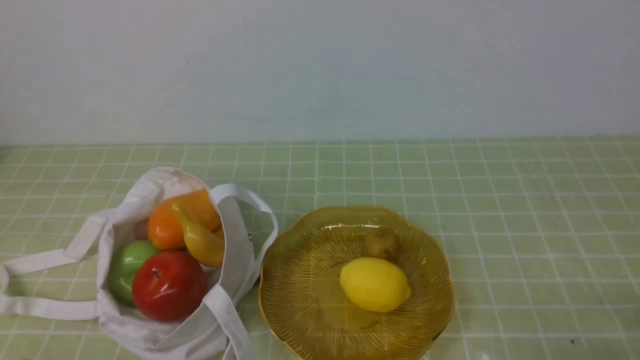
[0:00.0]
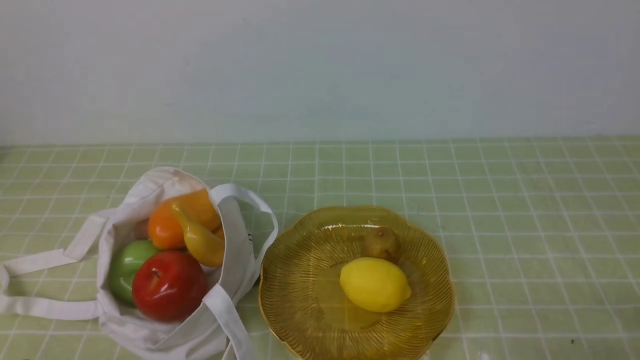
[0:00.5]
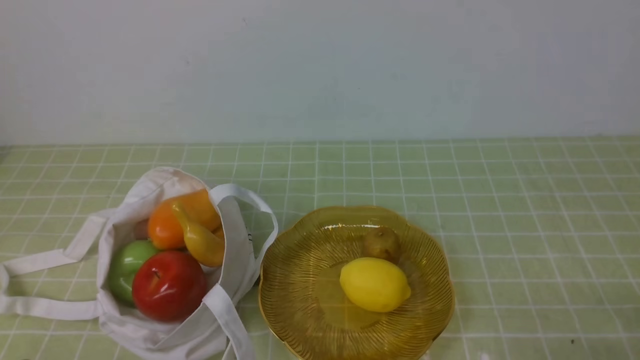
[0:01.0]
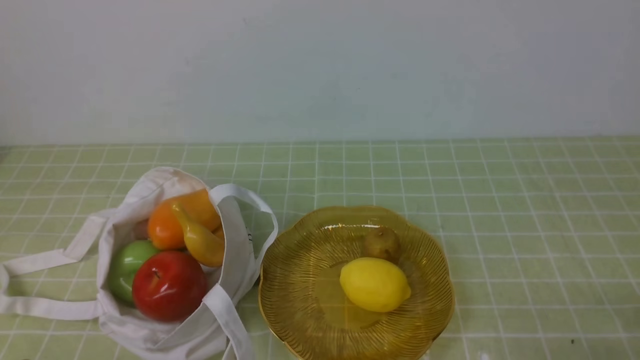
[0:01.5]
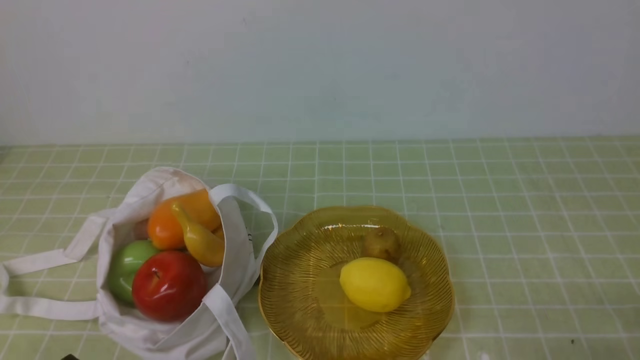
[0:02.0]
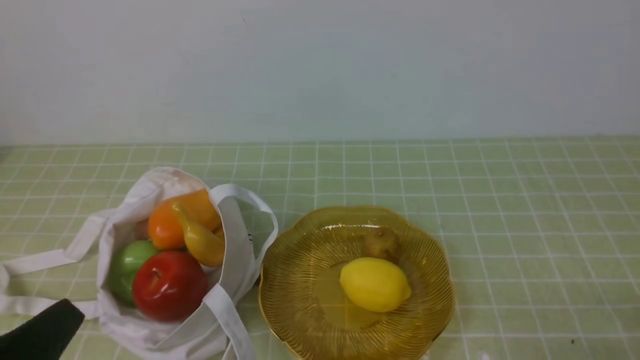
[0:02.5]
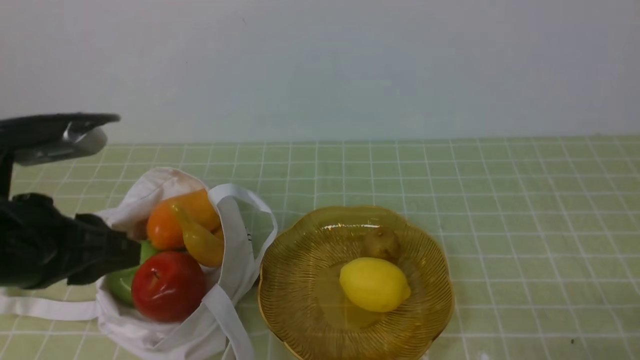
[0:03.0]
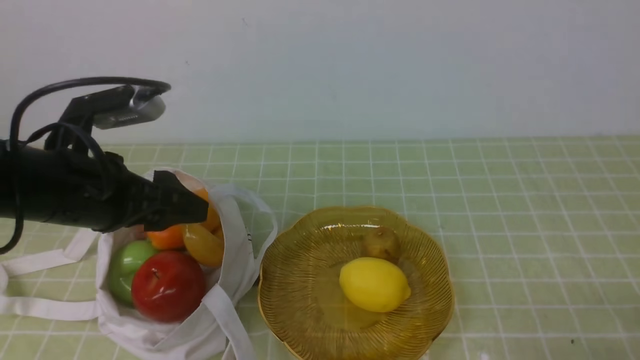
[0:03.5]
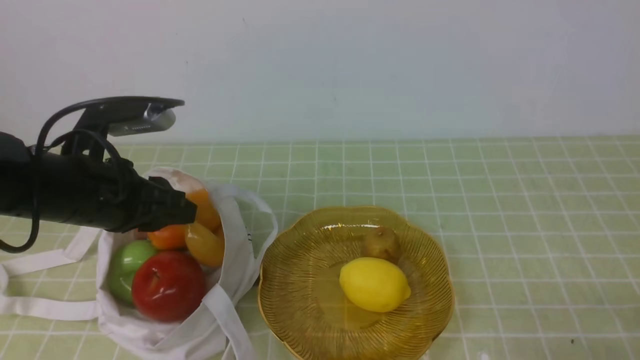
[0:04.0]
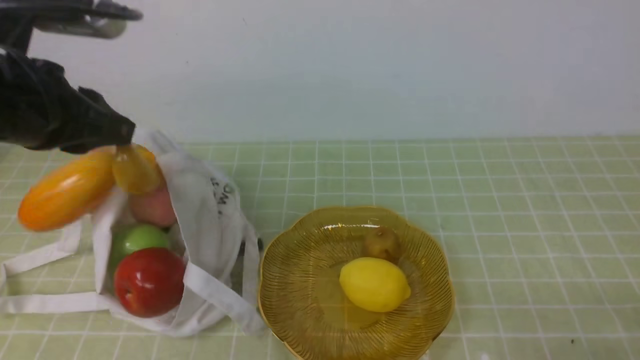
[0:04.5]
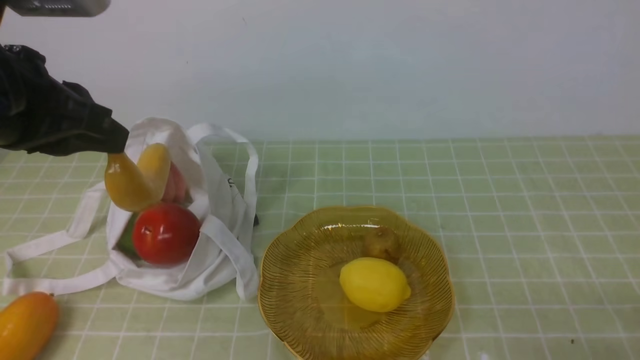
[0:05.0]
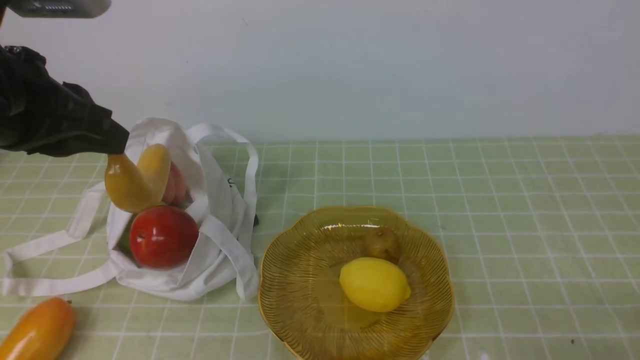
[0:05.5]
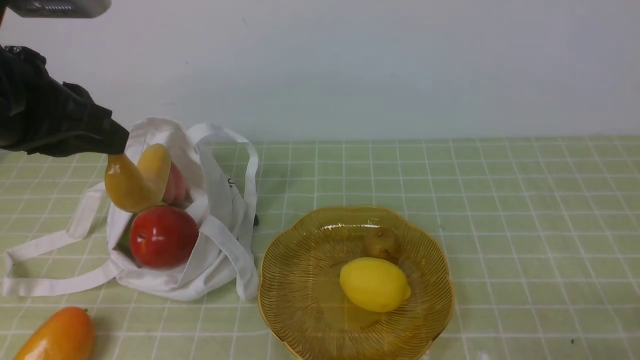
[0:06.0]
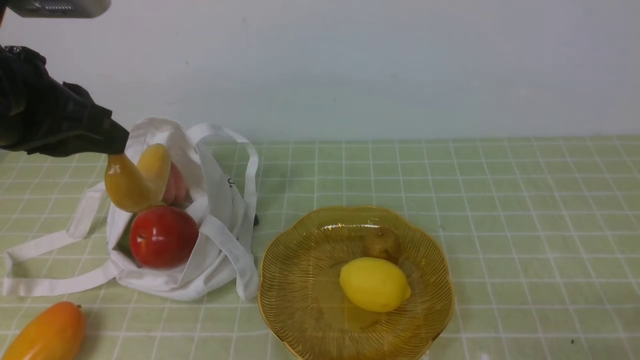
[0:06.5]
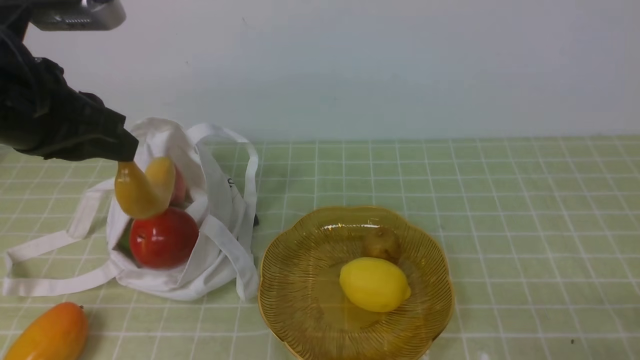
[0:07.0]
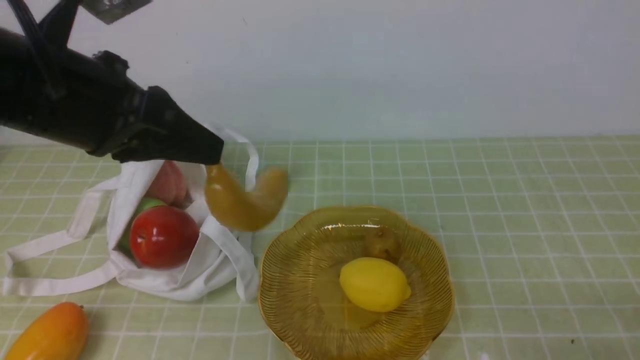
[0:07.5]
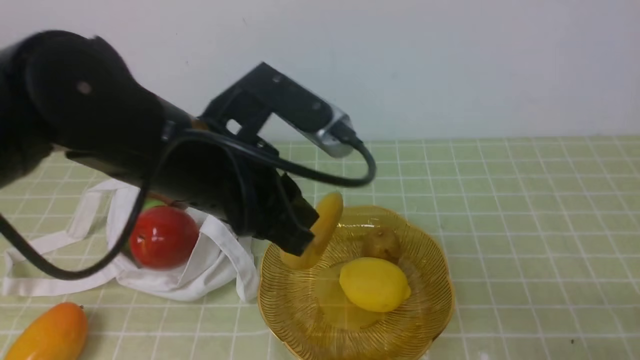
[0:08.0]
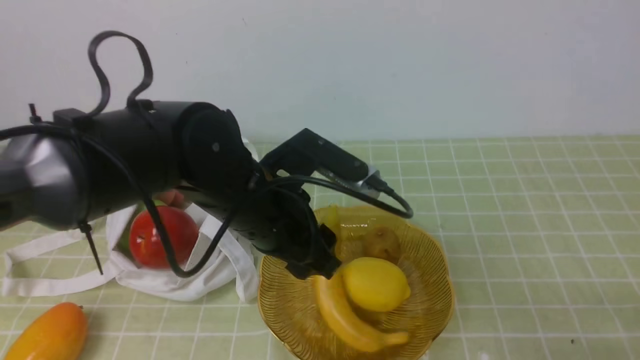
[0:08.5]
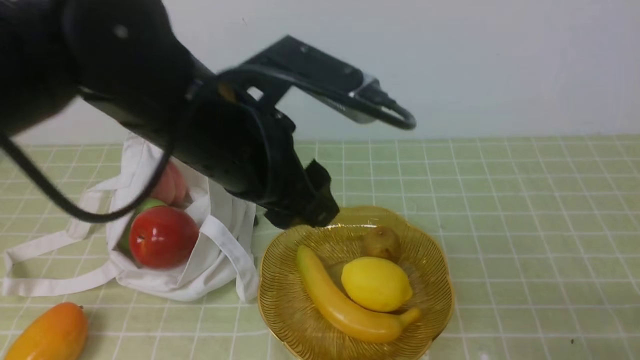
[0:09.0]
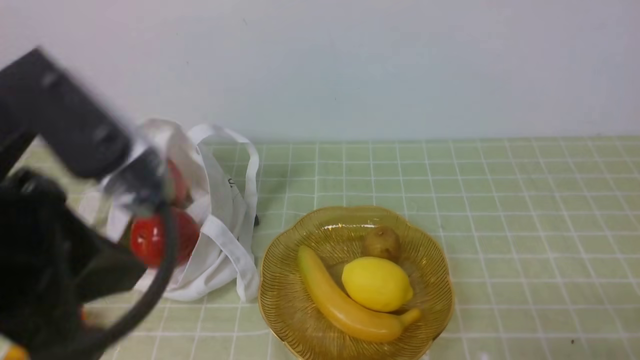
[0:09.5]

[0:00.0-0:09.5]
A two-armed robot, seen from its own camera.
Step, 0:00.0 to 0:04.0: use the left arm to grab a banana from the bag.
Step, 0:05.0 to 0:08.5: use the left arm to put the banana into the empty plate on the right.
0:02.0 to 0:04.0: The left gripper goes some 25 cm forward, and opens.
0:04.0 to 0:05.5: The left gripper heads upward, covering roughly 15 cm, and closes.
0:05.5 to 0:07.5: There are only small adjustments of the grippers.
0:07.5 to 0:09.5: The left gripper moves backward, some 10 cm, goes downward and returns, roughly 10 cm each way, and opens and closes again.

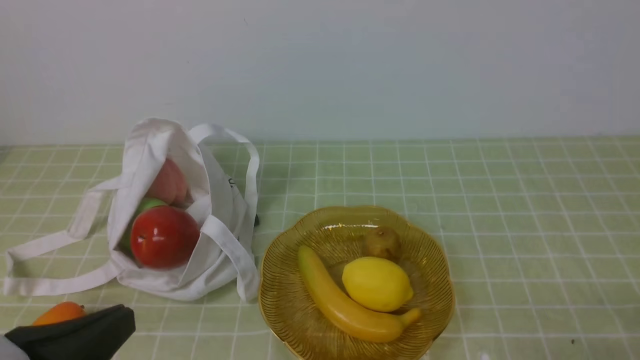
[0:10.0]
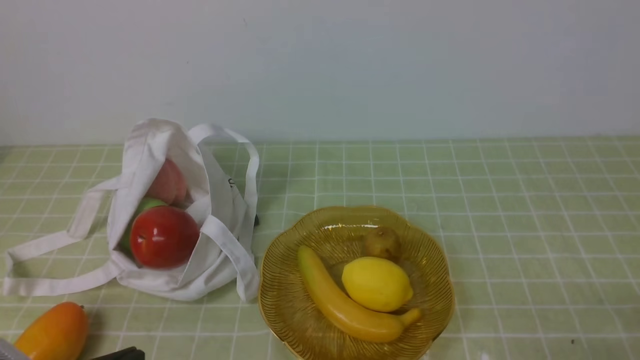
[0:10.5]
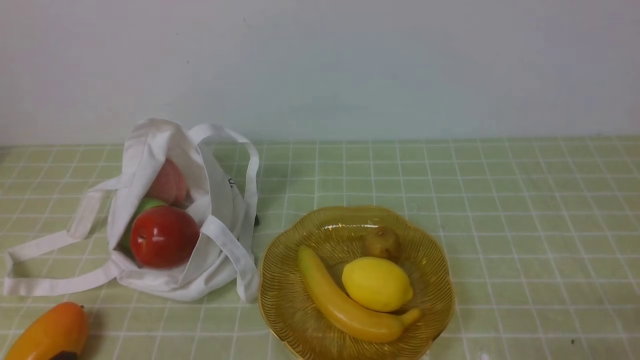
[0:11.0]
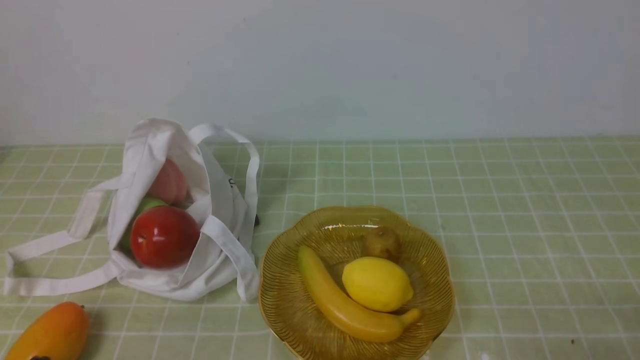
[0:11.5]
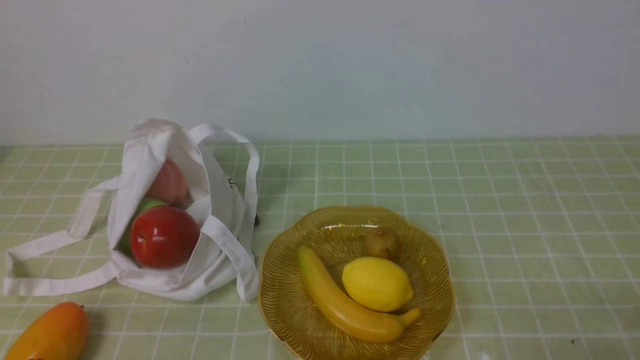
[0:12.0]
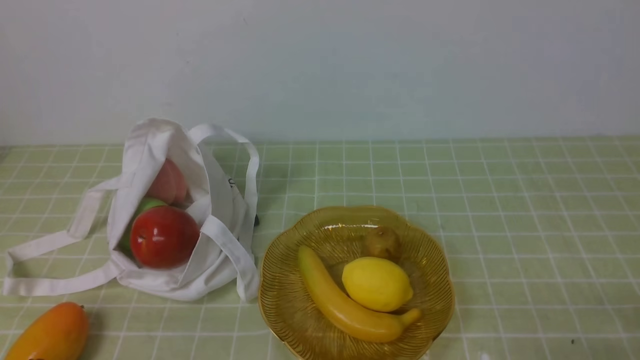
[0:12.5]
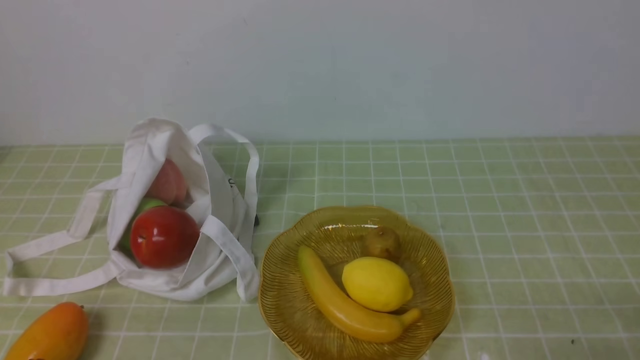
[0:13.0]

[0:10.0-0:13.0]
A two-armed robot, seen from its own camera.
0:10.0 to 0:11.5: The left gripper heads downward, covering approximately 10 cm.
0:11.5 to 0:13.0: Both grippers stay put.

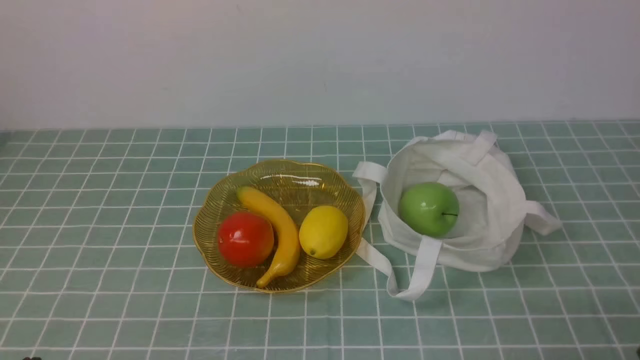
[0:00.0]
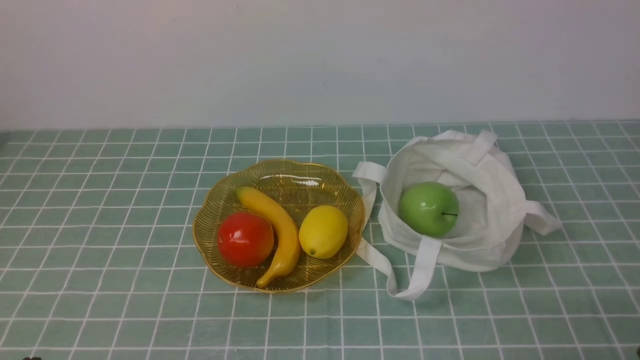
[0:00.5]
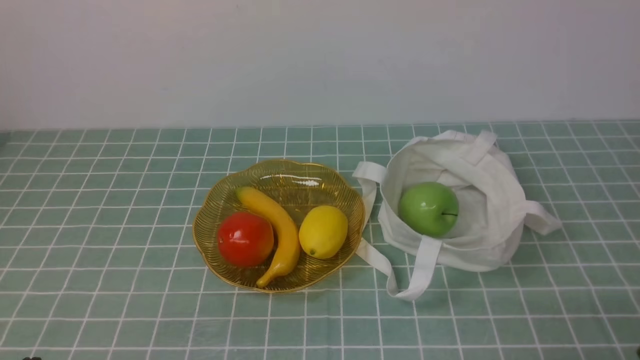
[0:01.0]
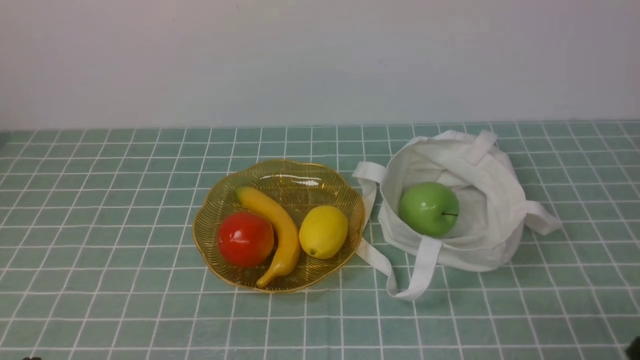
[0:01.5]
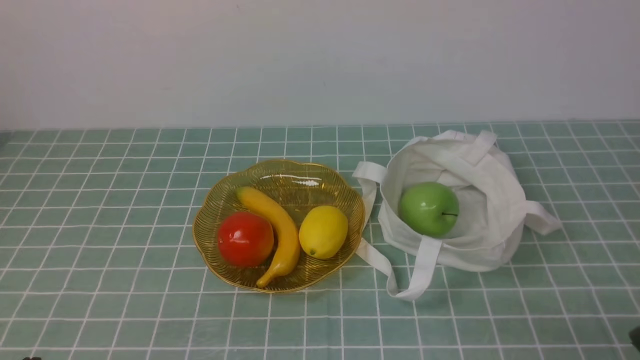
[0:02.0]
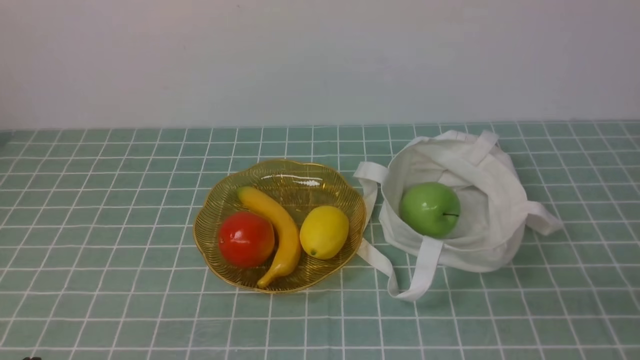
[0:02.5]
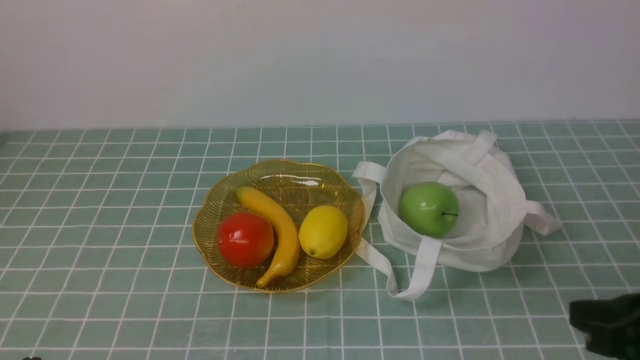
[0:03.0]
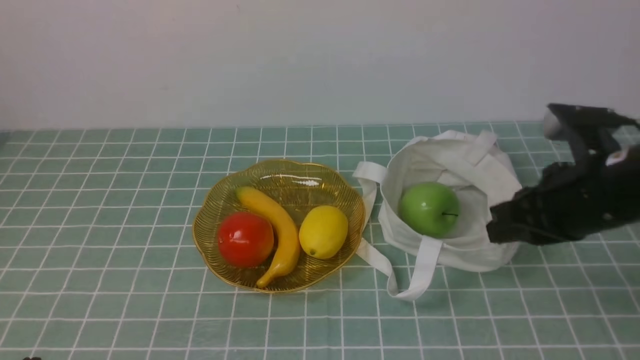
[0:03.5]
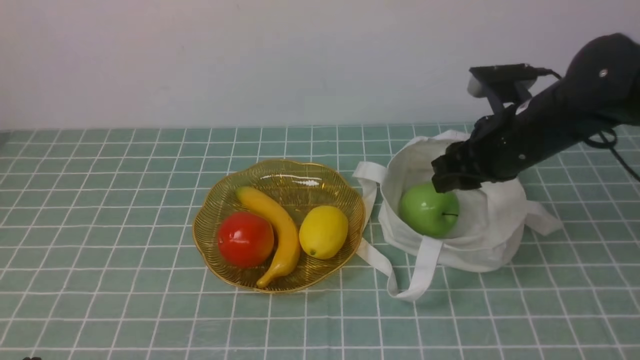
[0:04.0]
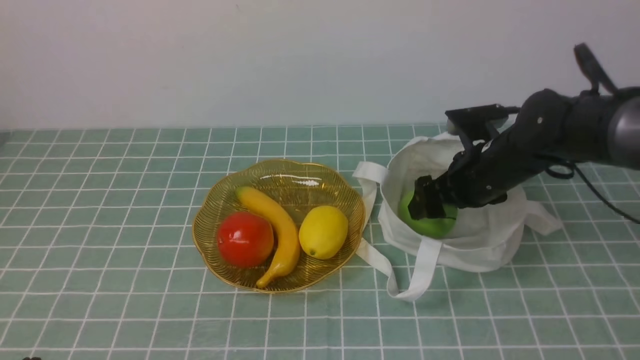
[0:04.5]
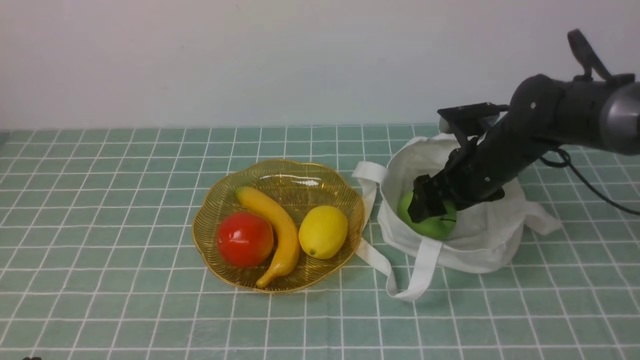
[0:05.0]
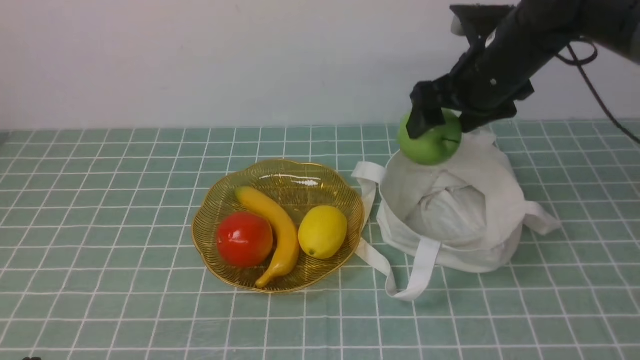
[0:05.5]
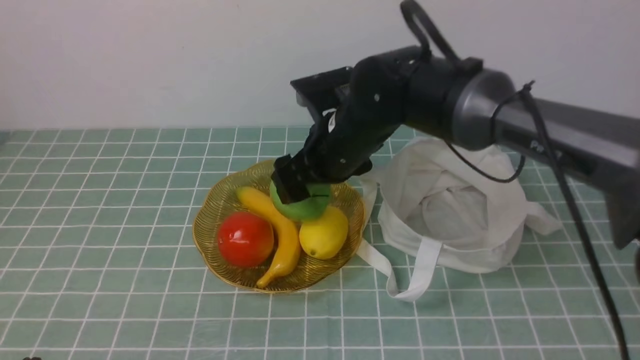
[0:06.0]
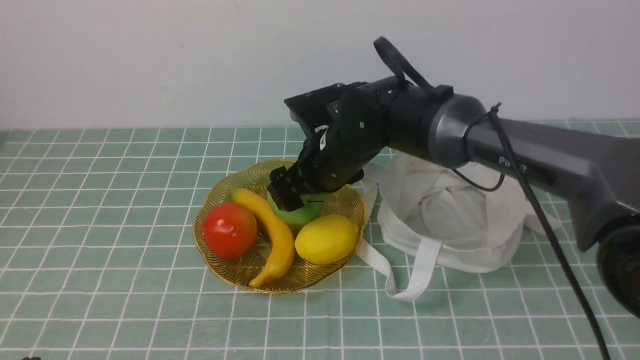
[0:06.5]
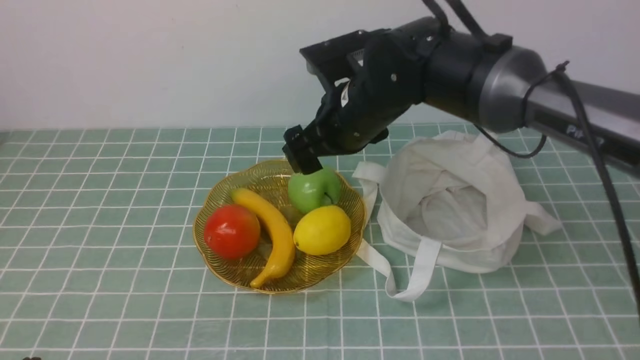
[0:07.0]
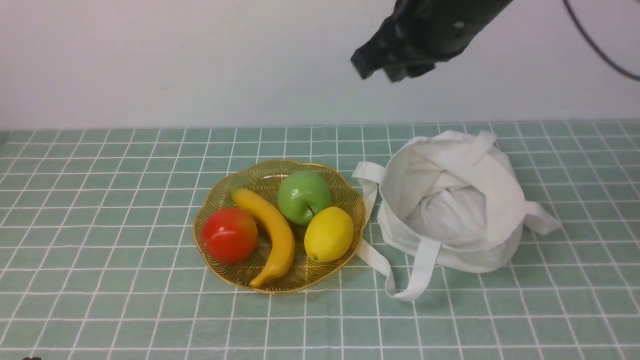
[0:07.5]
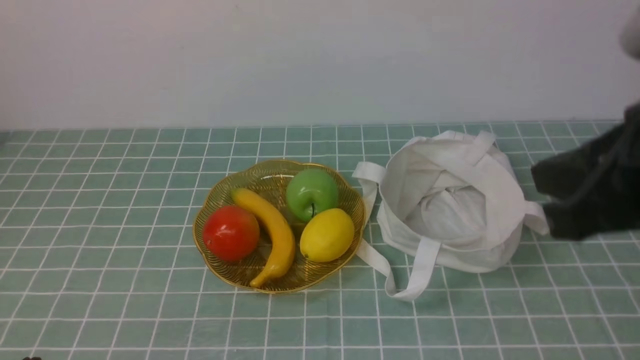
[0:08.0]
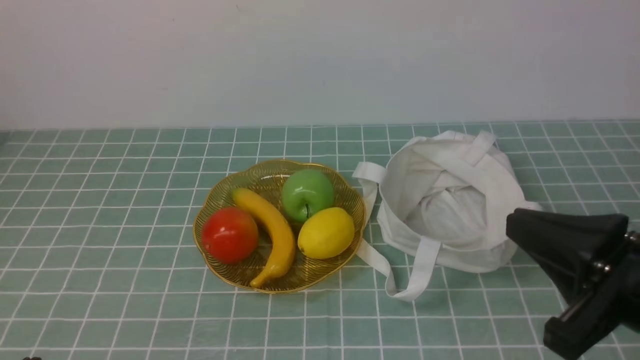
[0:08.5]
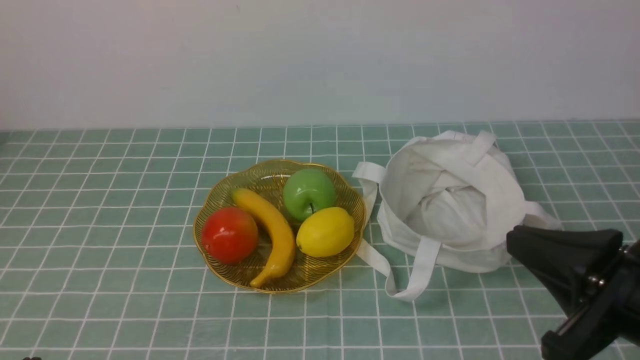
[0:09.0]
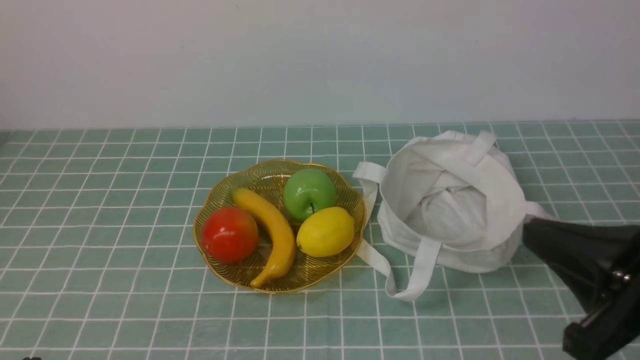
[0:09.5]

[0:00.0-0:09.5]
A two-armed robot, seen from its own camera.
Step, 0:00.0 to 0:05.0: use the right arm to grab an apple from the bag.
Step, 0:05.5 to 0:06.5: use the right arm to put the apple into the empty plate on the left.
0:02.0 to 0:04.0: The right gripper heads forward, covering roughly 30 cm.
0:04.0 to 0:05.5: The right gripper moves forward, roughly 5 cm, moves about 5 cm downward and comes back, and opens its fingers.
0:05.5 to 0:07.5: The right gripper goes some 15 cm upward, backward and to the left, and closes.
0:07.5 to 0:09.5: The right gripper is displaced backward, to the right and downward by some 25 cm.
